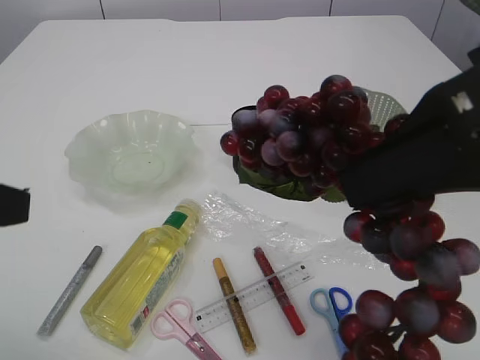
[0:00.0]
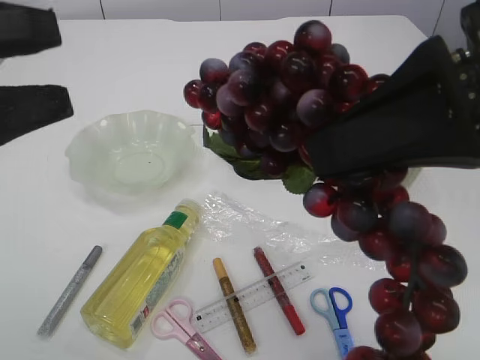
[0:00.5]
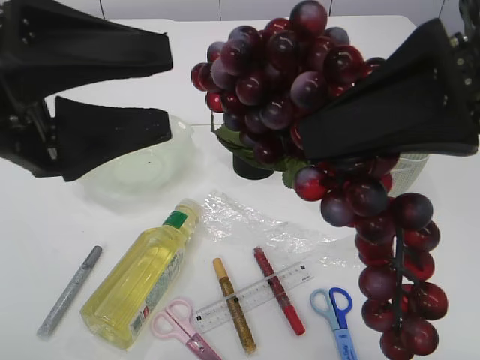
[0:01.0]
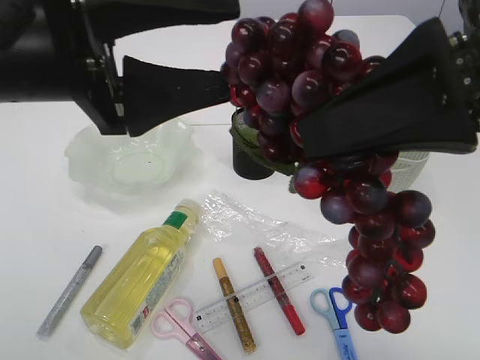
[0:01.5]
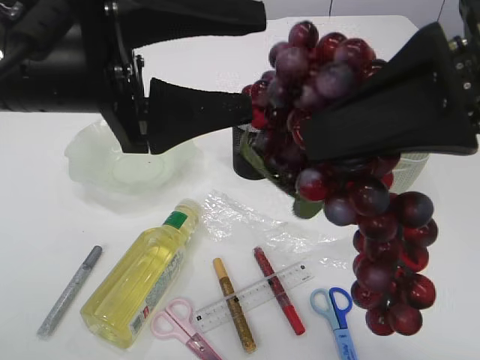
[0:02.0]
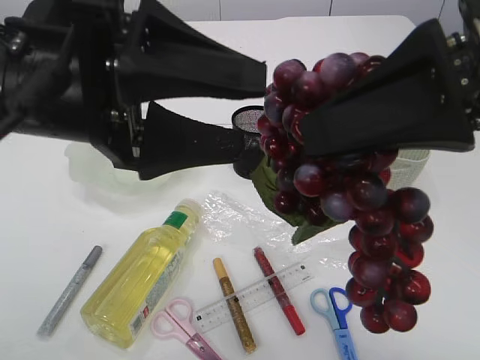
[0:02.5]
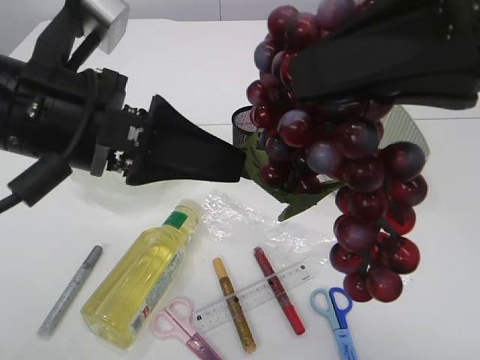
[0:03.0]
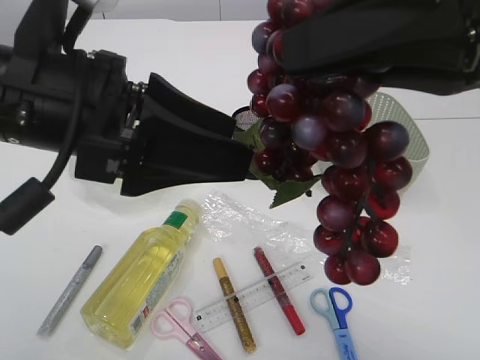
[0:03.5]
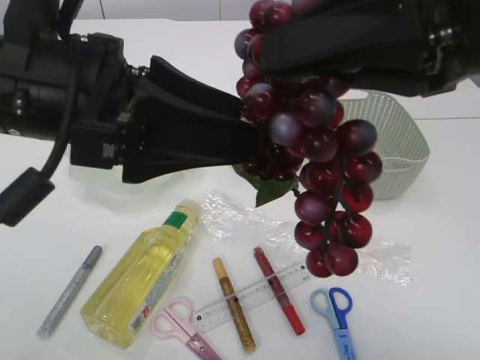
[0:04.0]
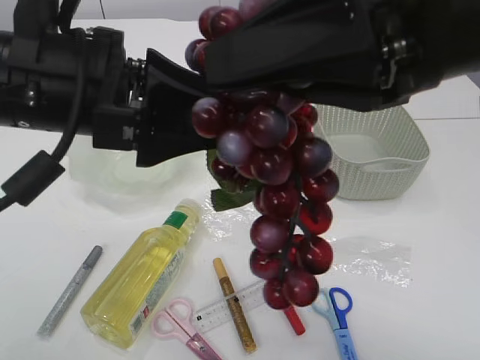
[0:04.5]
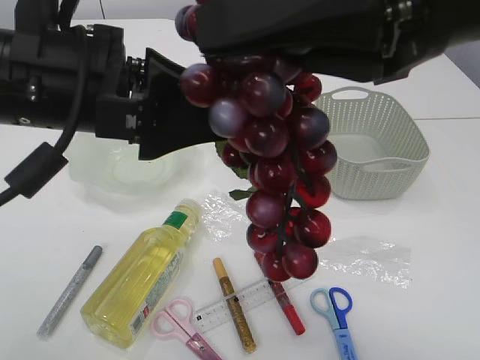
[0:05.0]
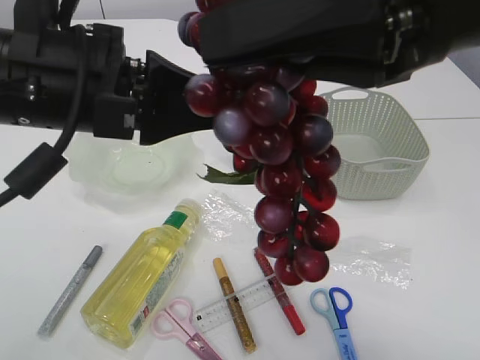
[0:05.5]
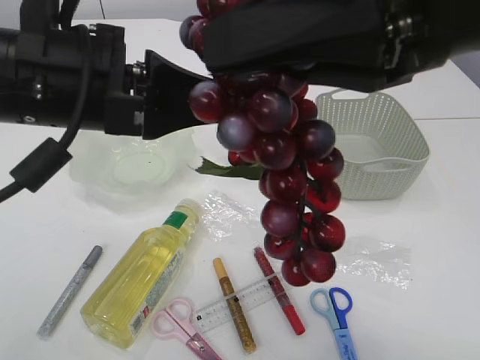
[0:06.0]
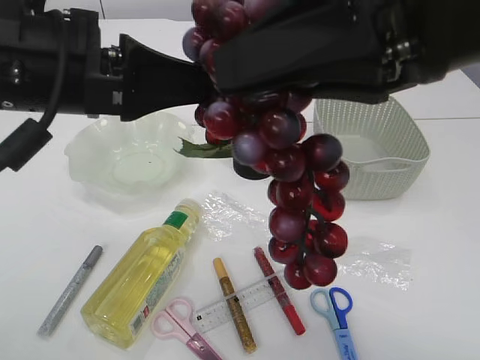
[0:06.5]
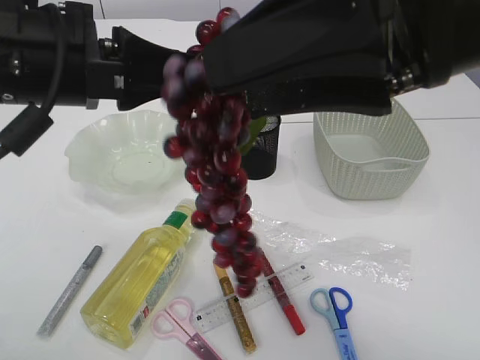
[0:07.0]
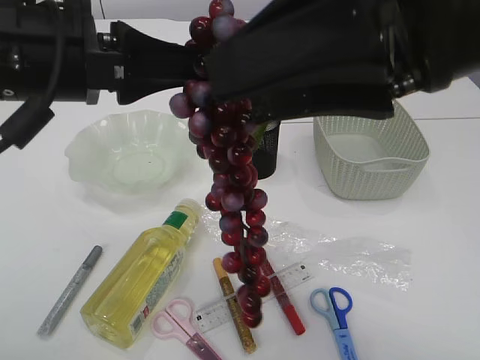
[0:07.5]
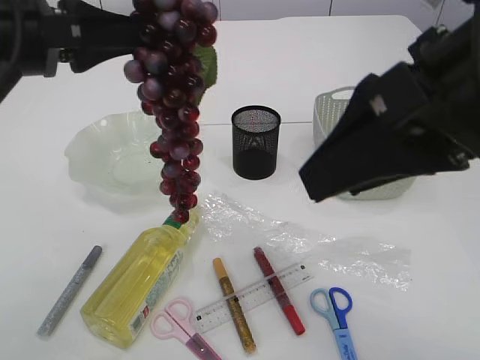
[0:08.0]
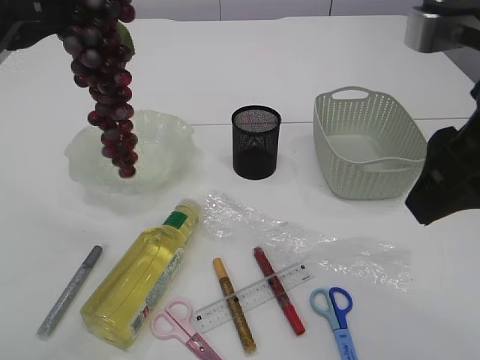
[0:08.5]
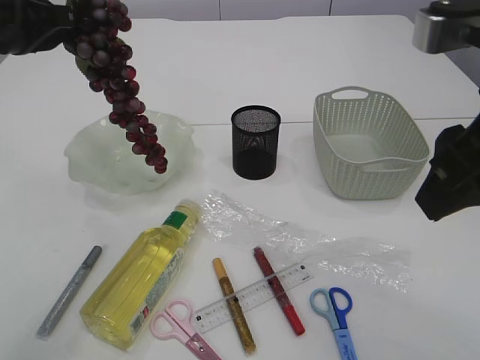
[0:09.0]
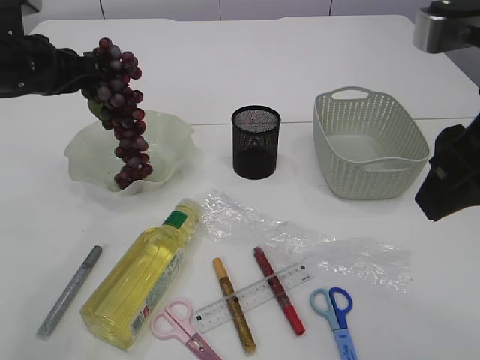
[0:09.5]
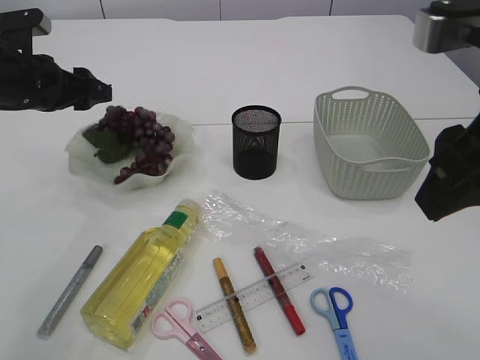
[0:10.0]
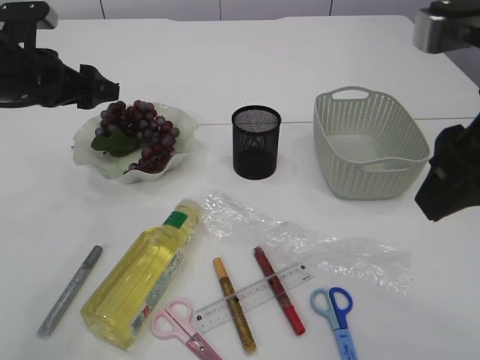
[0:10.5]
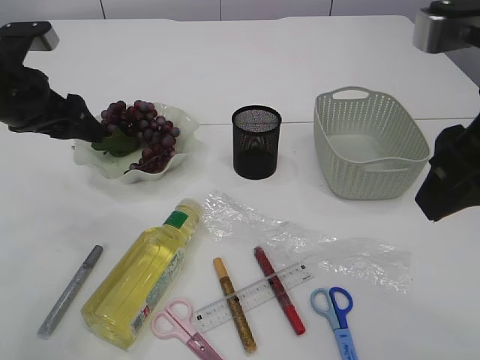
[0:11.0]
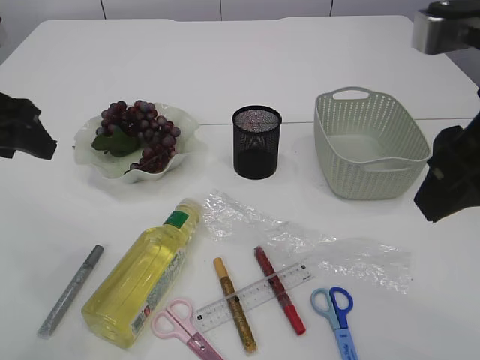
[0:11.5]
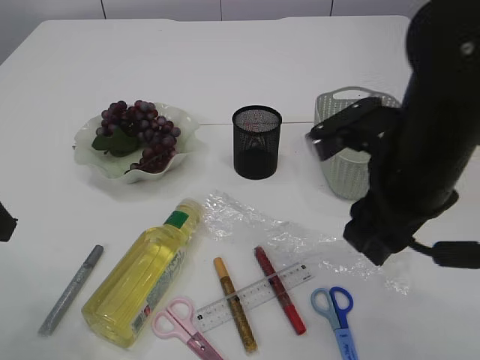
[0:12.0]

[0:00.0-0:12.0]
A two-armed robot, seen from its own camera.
Step, 0:00.0 to 0:07.5: Hand over the grapes.
Step, 0:08.0 to 0:11.0: Place the grapes in the plate.
0:00.0 to 0:02.0: The left gripper goes about 15 cm to the right and forward.
0:04.0 to 0:06.0: The left gripper closes its fingers.
0:06.0 to 0:08.0: The right gripper opens its fingers, while the left gripper is displaced to the left by some 5 cm.
0:08.0 to 0:10.0: The left gripper goes roughly 20 cm forward, downward and to the left, and opens up.
0:10.0 to 0:12.0: The right gripper moves downward and forward, about 10 cm; the left gripper moves backward, about 15 cm.

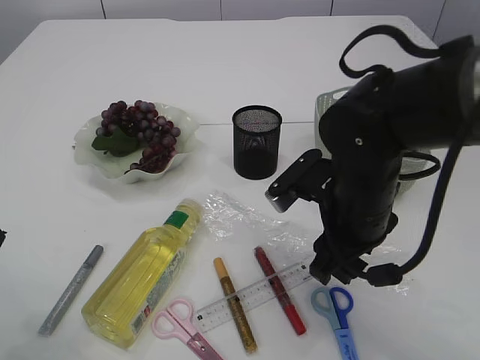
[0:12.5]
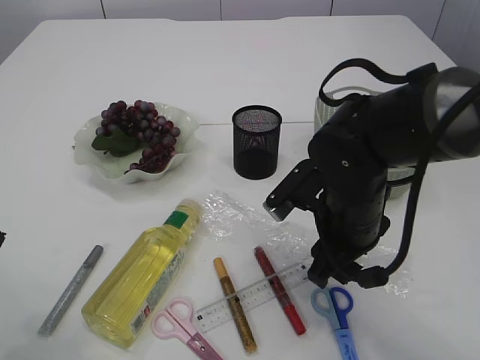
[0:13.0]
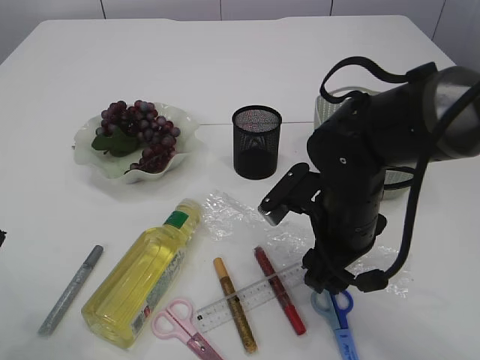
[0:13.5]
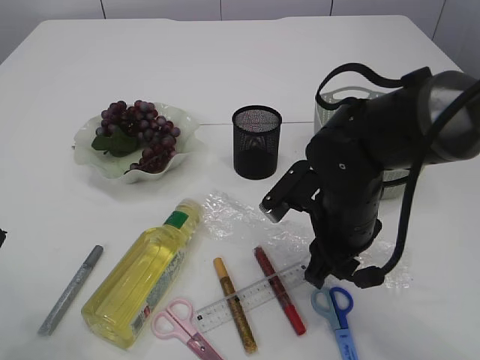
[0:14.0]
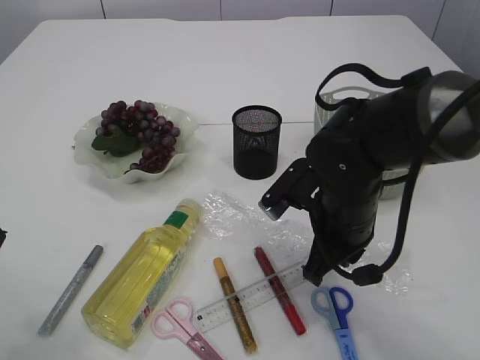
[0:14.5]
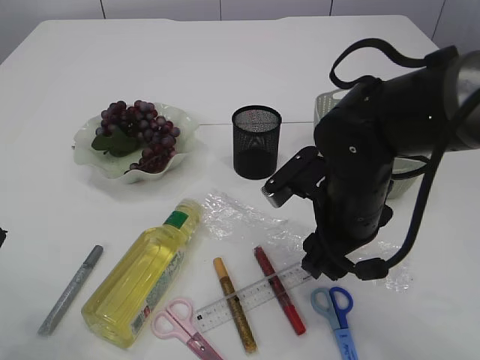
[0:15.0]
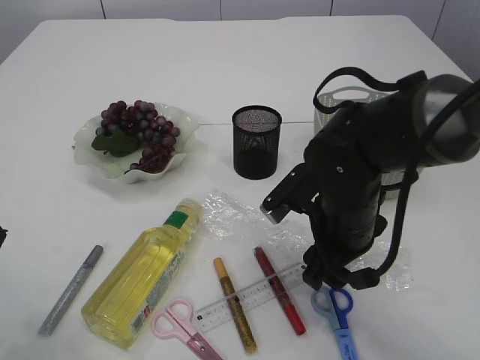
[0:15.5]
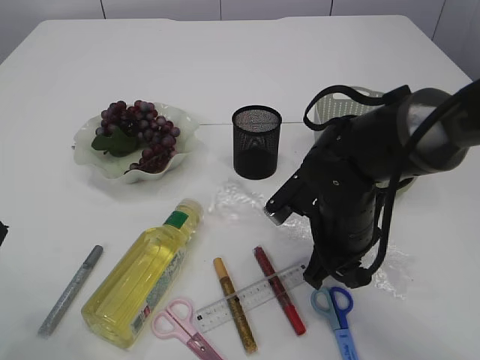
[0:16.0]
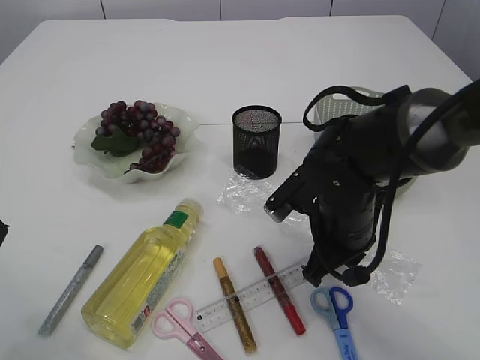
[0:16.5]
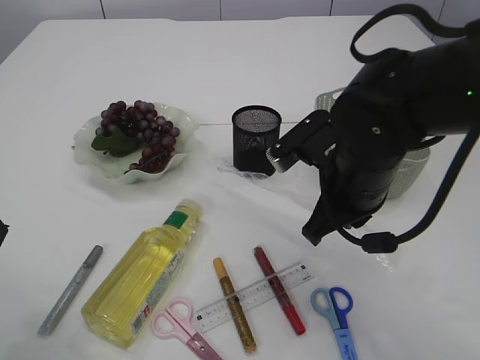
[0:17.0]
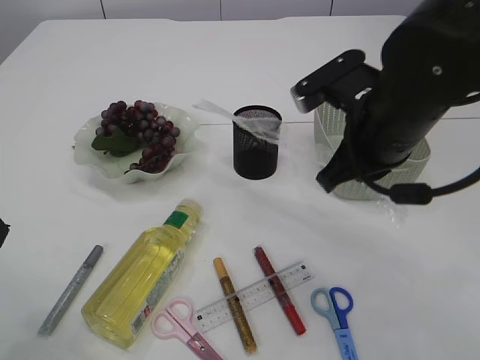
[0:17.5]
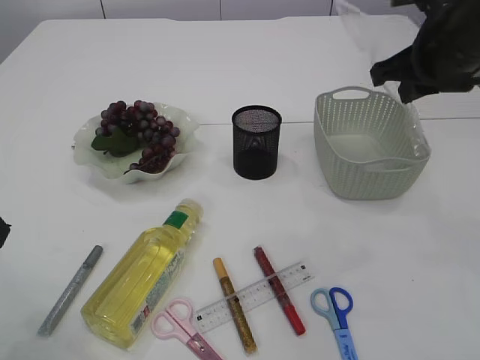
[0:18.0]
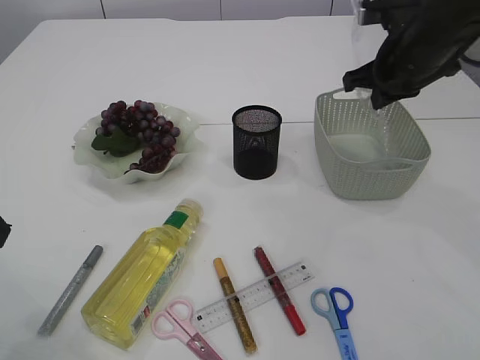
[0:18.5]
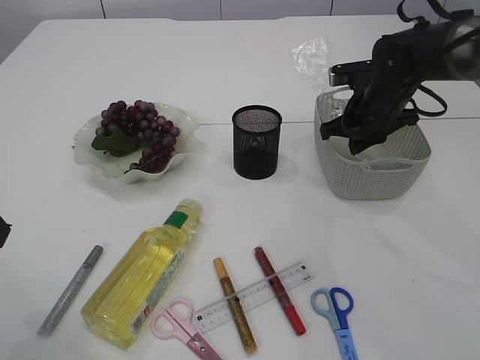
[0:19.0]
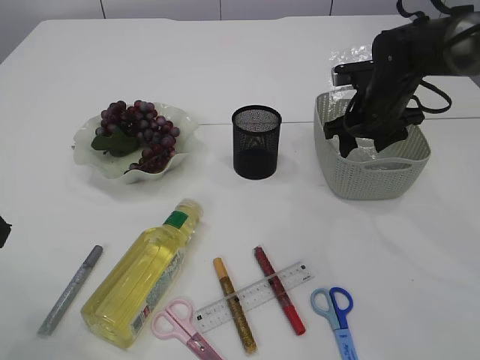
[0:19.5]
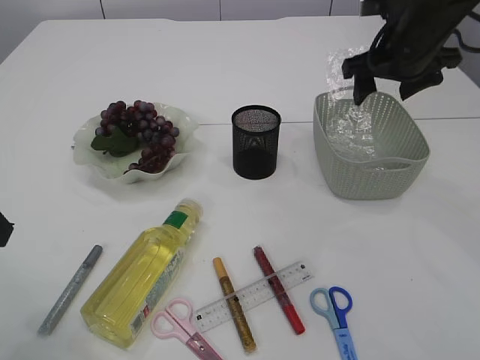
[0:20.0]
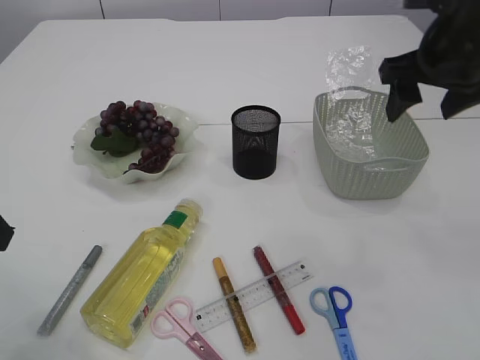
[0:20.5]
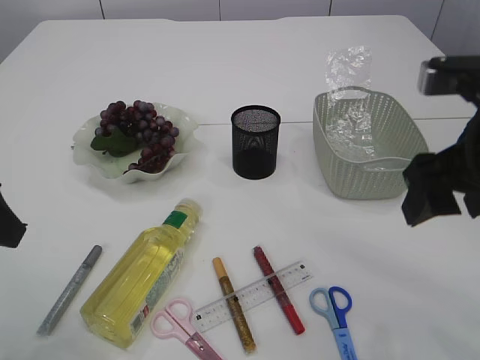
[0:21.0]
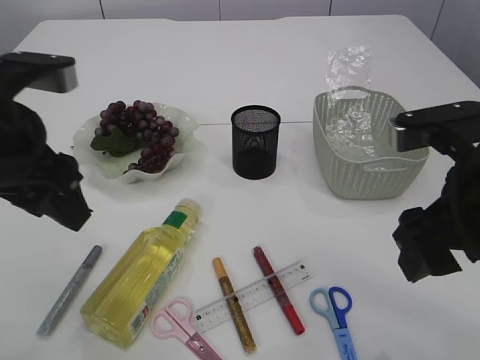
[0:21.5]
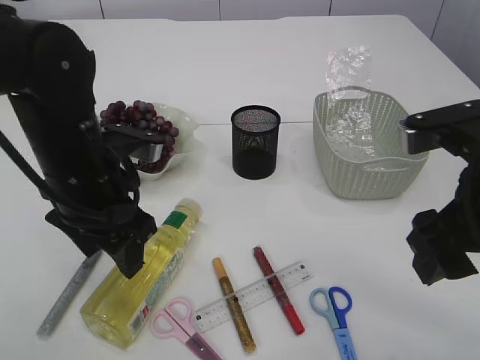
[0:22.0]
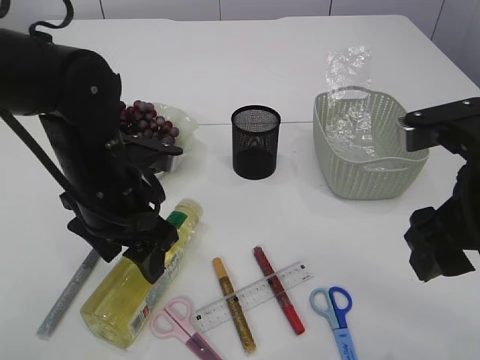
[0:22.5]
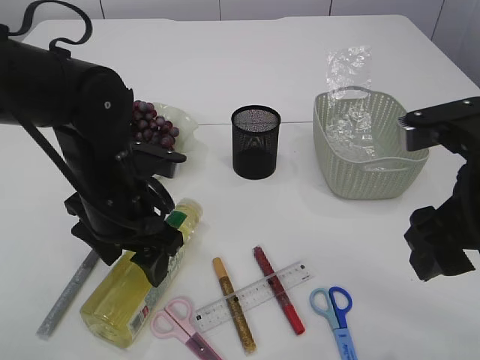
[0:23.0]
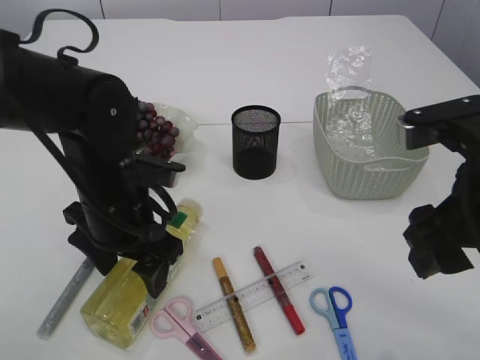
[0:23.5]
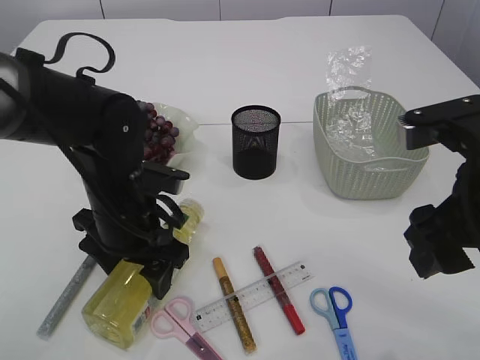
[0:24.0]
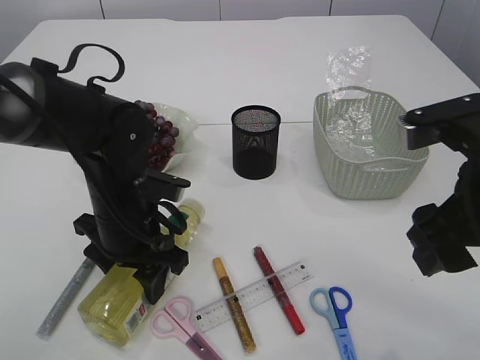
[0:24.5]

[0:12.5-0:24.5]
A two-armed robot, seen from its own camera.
Step, 0:12.5 to 0:17.0: Pick up the plastic.
Step, 0:17.5 to 0:20.5: Place the plastic in the basket.
0:12.5 to 0:14.5: The right gripper closes.
0:14.5 to 0:16.5: The right gripper opens and closes again.
0:16.5 to 0:18.5: The right gripper travels upward, forward and to the right by some 20 cm.
0:18.5 to 0:20.5: The right gripper moves backward, about 5 cm, reaches approximately 10 cm downward, then returns, and opens up.
0:20.5 to 0:22.5: The left gripper is displaced to the right, downward and forward by some 20 cm; the right gripper heads backward, covering roughly 15 cm.
0:22.5 to 0:24.5: The left gripper is displaced downward by approximately 5 cm.

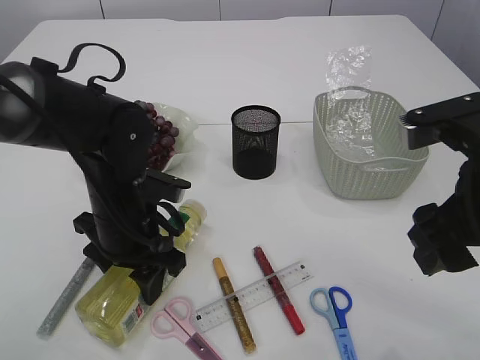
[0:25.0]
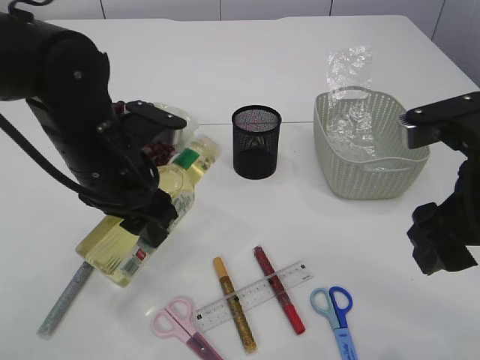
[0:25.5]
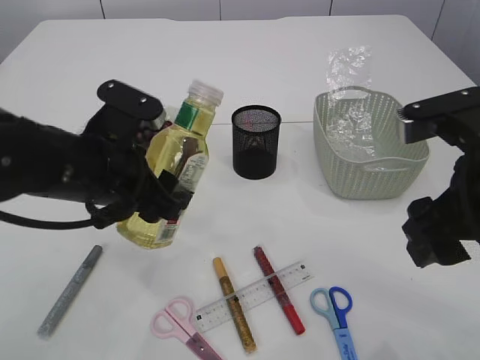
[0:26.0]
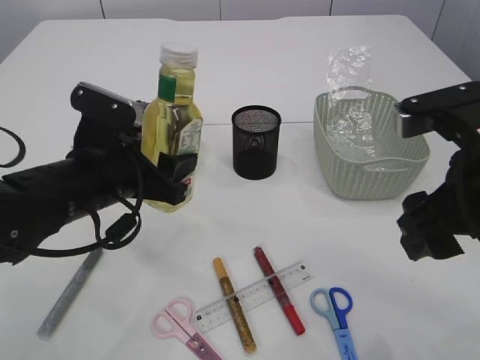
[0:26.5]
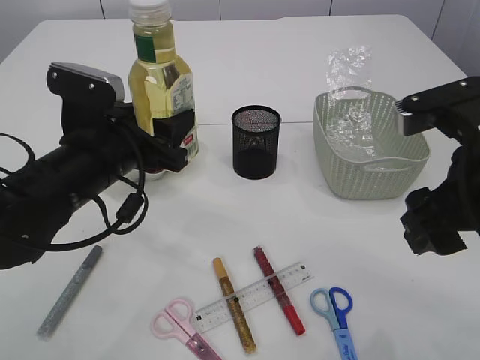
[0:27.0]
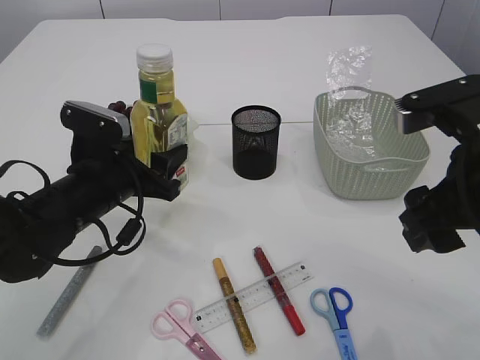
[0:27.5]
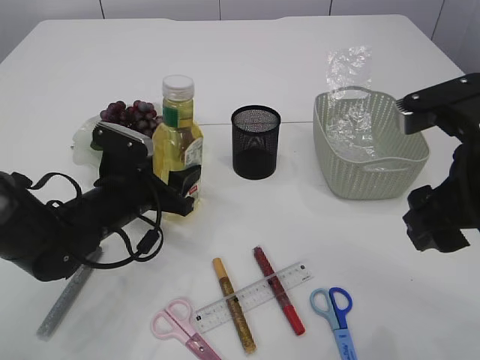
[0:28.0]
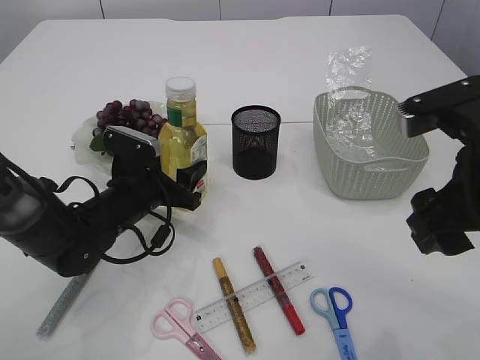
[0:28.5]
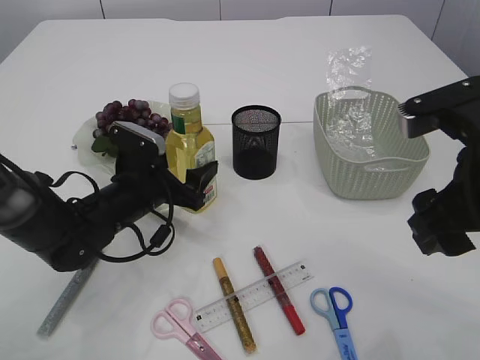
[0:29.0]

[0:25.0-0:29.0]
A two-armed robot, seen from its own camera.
0:25.0 to 0:27.0: The left gripper shifts roughly 5 cm upward.
0:27.0 to 0:29.0: The left gripper moves downward and forward, approximately 10 cm.
